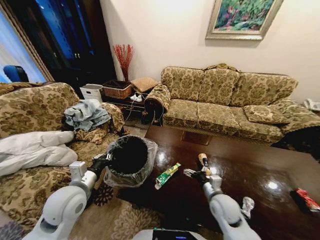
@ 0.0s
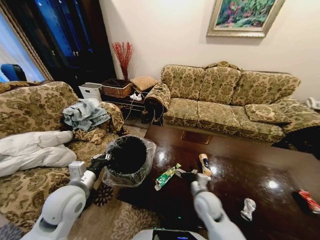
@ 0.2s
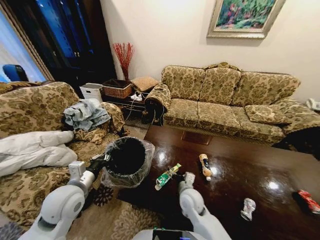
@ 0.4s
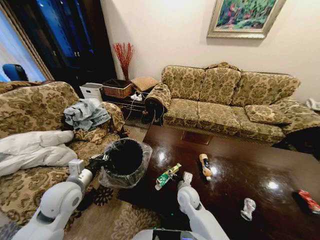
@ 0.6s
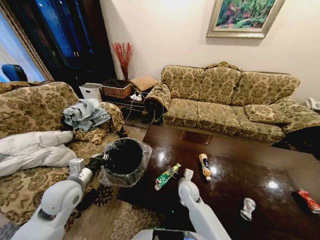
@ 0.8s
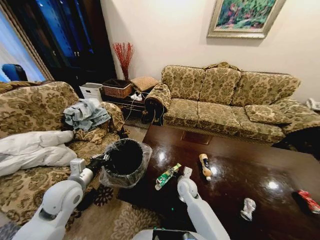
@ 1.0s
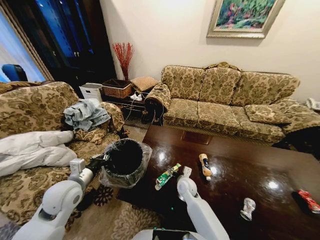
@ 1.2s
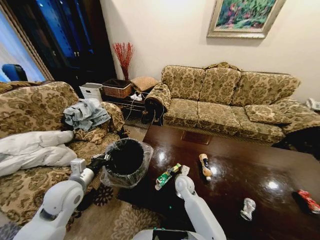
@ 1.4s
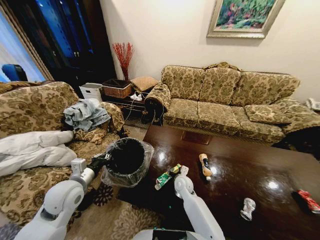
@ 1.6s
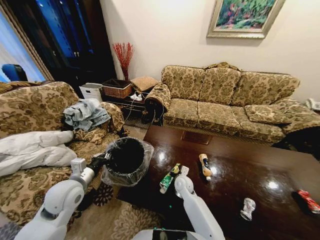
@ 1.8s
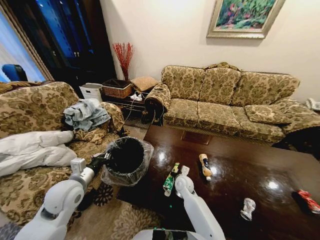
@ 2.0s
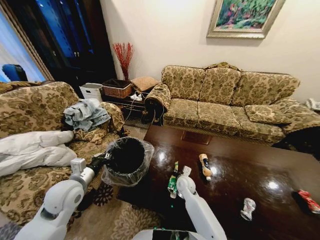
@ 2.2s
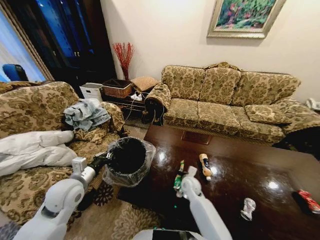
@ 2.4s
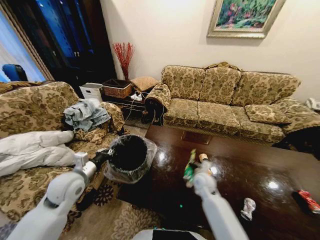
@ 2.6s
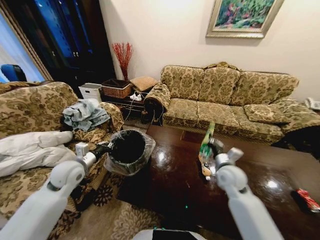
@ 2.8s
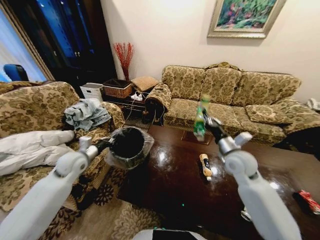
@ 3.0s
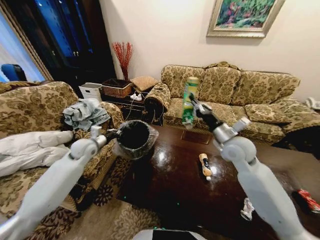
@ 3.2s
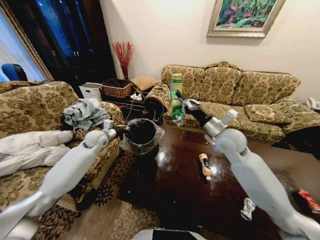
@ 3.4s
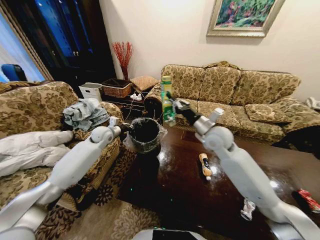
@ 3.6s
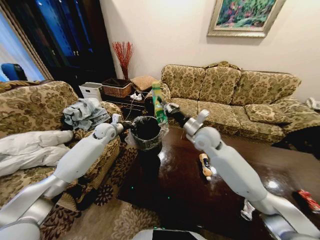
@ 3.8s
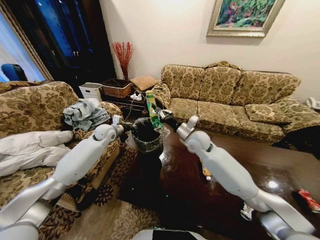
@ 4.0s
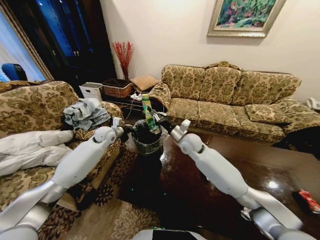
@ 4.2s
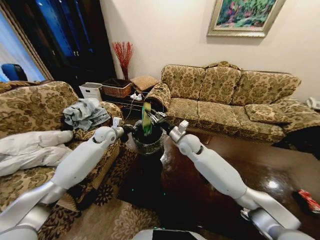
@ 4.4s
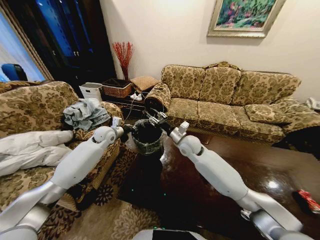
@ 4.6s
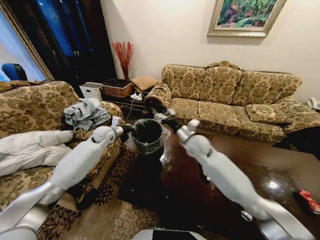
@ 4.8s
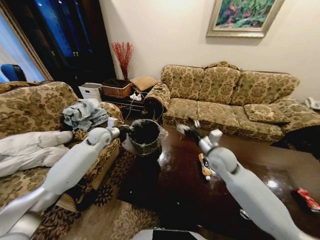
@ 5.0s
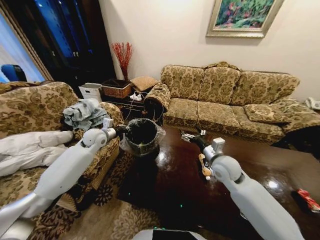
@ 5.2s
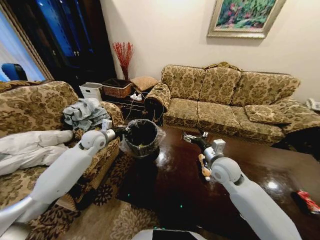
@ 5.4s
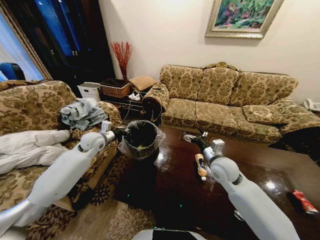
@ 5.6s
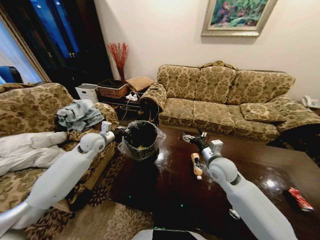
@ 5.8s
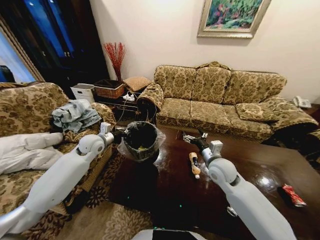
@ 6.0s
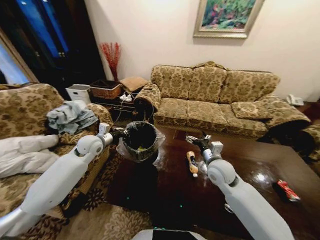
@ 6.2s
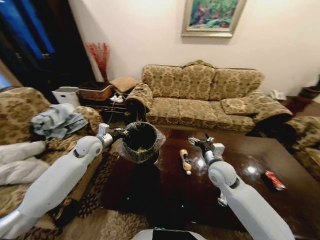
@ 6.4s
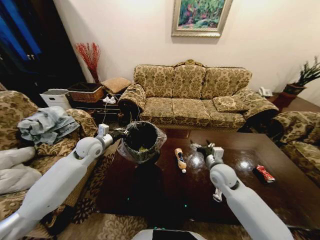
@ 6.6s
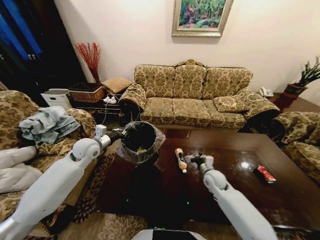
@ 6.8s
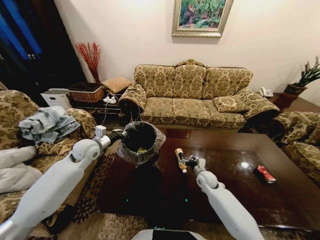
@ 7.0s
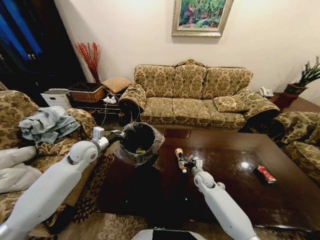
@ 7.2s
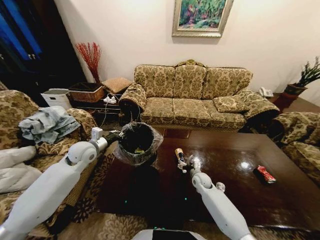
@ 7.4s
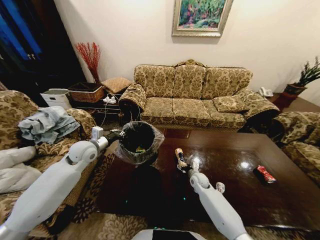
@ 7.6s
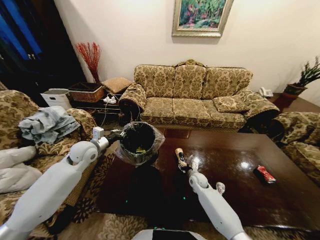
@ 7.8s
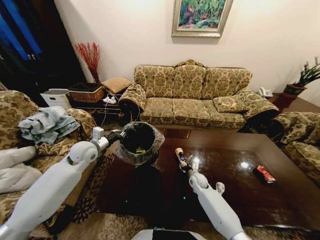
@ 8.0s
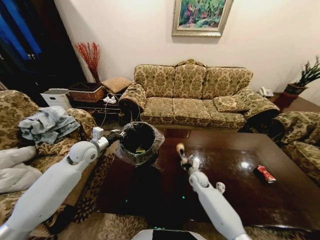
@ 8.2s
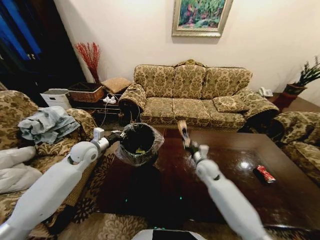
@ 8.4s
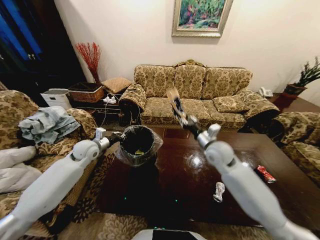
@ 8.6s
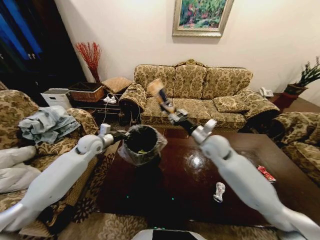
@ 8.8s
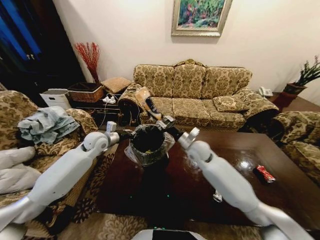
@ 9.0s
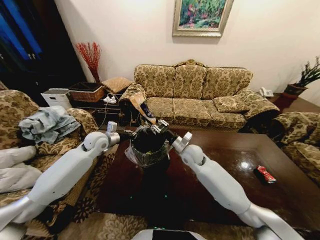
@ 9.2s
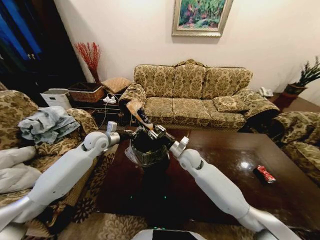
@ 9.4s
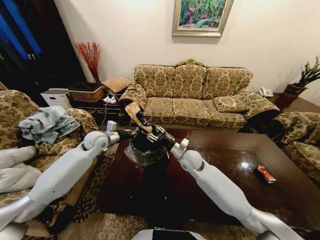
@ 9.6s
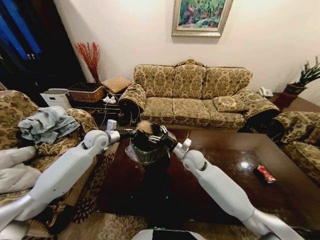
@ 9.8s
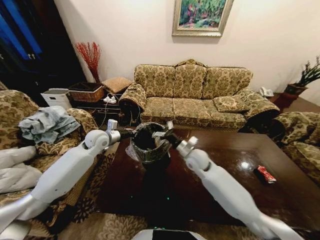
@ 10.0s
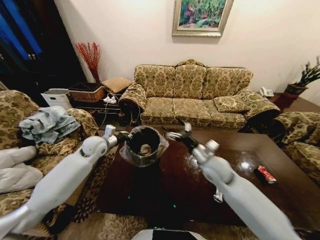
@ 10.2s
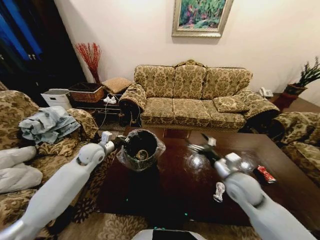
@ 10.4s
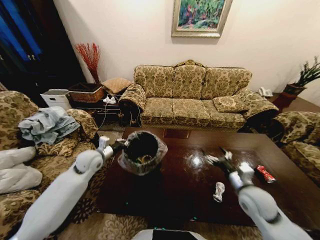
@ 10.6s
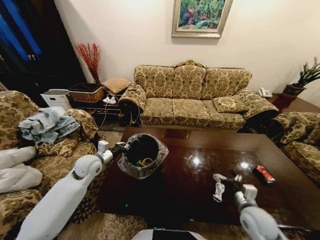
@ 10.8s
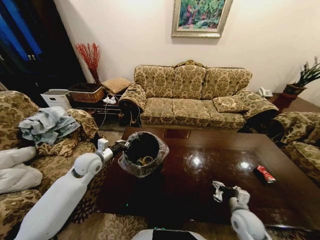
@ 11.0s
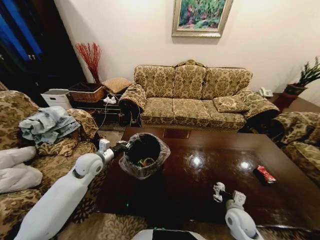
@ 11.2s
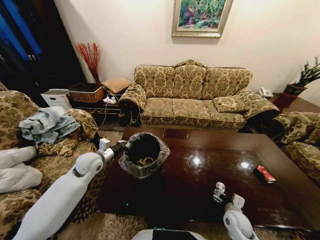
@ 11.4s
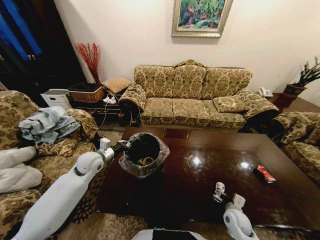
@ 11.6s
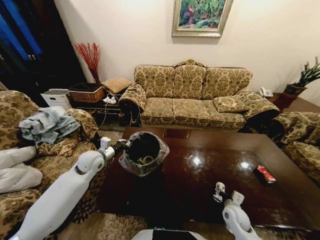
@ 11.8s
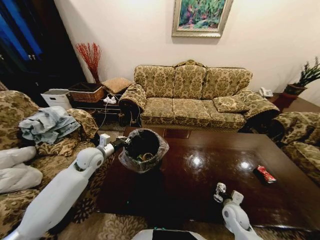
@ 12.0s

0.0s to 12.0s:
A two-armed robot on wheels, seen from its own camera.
Task of the whole recording: Move to the front of the table and place the trash on the table into the trash bin.
0.0s to 1.6s: The right gripper moves to the left, forward and downward, some 20 cm.
1.6s to 3.0s: The right gripper moves upward and to the right, roughly 30 cm, and closes its fingers, while the left gripper is displaced forward by about 10 cm.
3.0s to 4.4s: The right gripper is displaced to the left and forward by about 20 cm; the left gripper goes some 15 cm forward and to the right.
4.4s to 6.0s: The right gripper goes roughly 15 cm to the right and backward, and opens its fingers. The left gripper travels backward by roughly 5 cm.
6.0s to 7.6s: The right gripper shifts roughly 25 cm downward.
7.6s to 9.0s: The left gripper shifts about 5 cm forward, while the right gripper travels upward by approximately 25 cm, and closes up.
9.0s to 10.4s: The right gripper travels backward and to the right by approximately 20 cm, and opens up; the left gripper shifts by about 5 cm.
10.4s to 12.0s: The right gripper is displaced downward by some 20 cm.

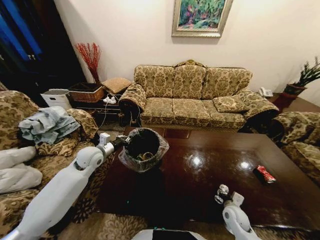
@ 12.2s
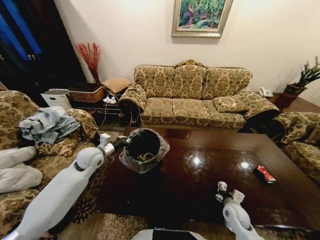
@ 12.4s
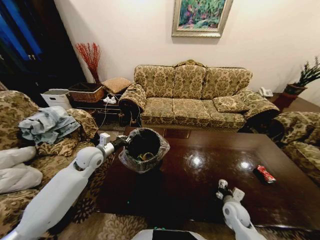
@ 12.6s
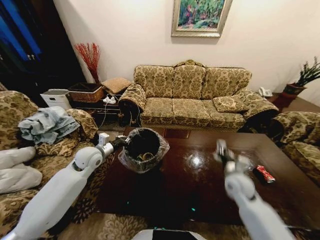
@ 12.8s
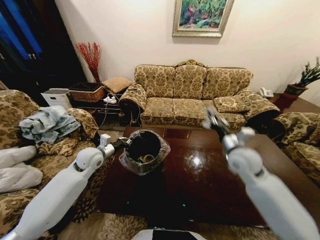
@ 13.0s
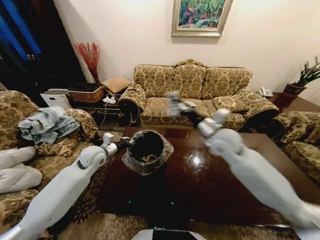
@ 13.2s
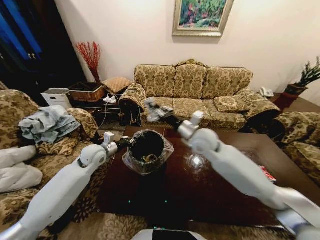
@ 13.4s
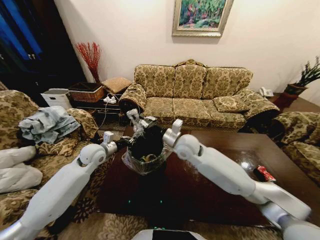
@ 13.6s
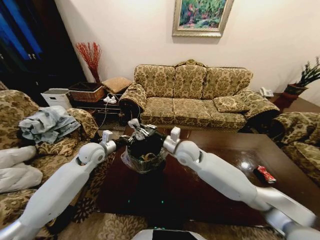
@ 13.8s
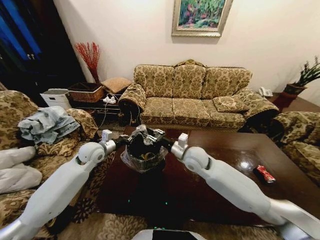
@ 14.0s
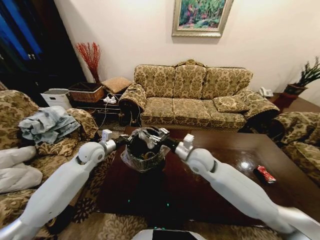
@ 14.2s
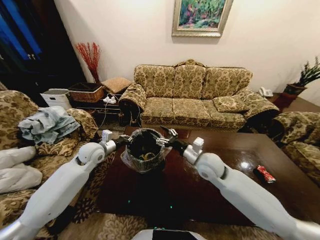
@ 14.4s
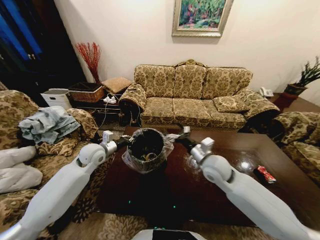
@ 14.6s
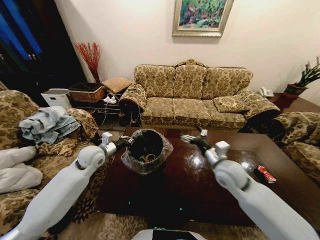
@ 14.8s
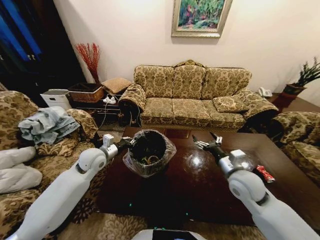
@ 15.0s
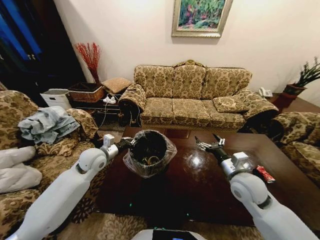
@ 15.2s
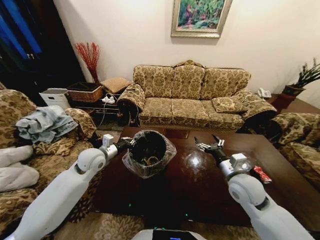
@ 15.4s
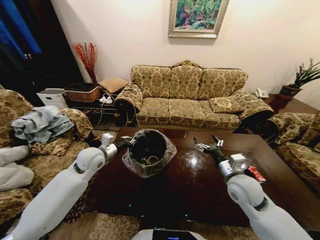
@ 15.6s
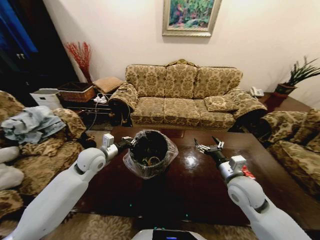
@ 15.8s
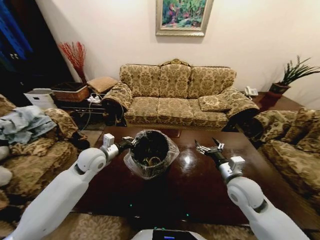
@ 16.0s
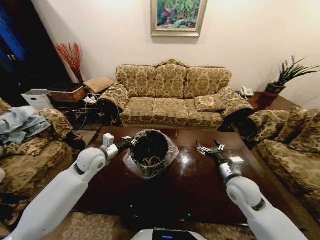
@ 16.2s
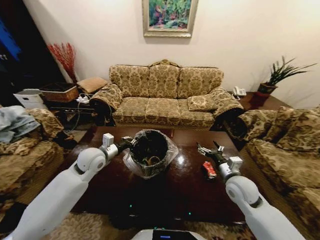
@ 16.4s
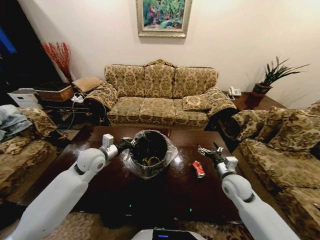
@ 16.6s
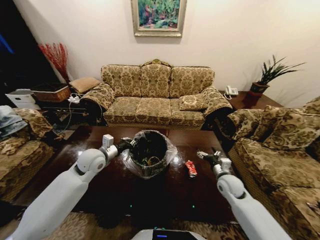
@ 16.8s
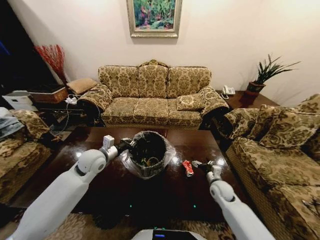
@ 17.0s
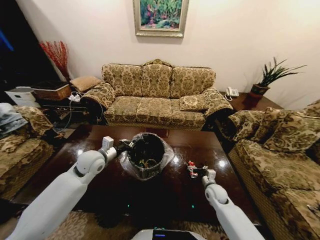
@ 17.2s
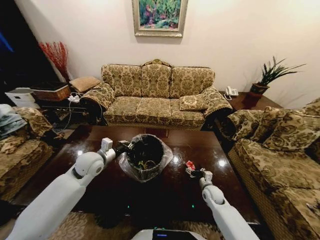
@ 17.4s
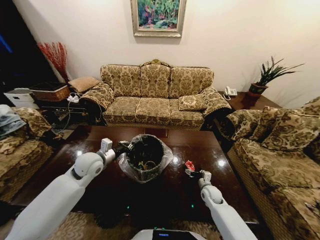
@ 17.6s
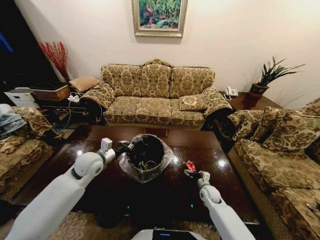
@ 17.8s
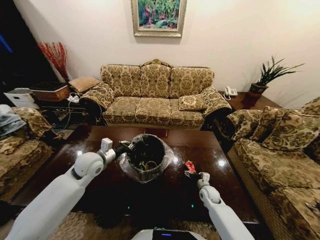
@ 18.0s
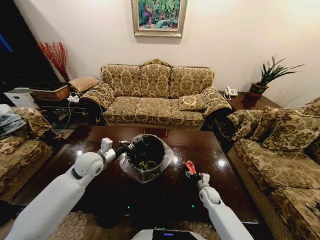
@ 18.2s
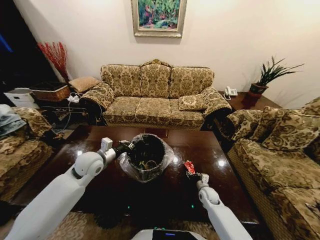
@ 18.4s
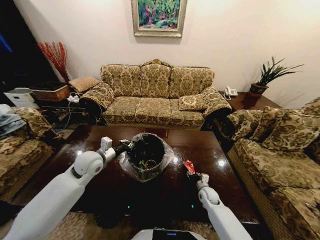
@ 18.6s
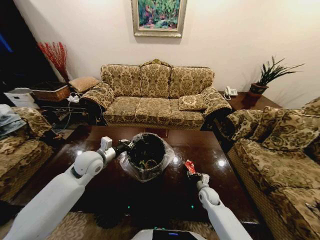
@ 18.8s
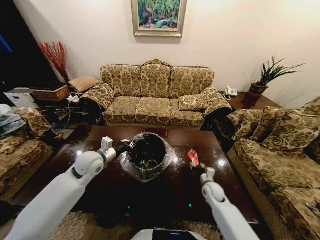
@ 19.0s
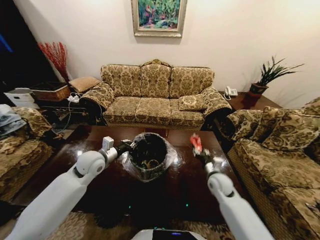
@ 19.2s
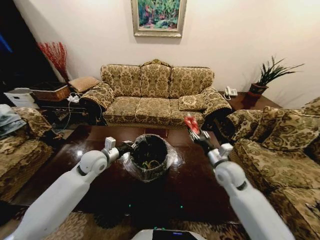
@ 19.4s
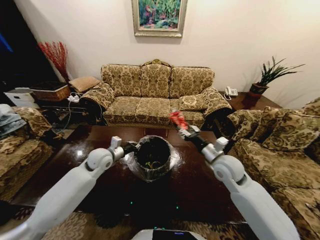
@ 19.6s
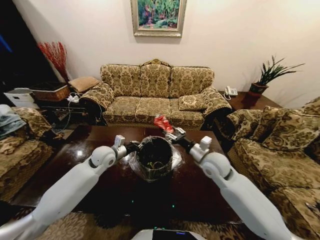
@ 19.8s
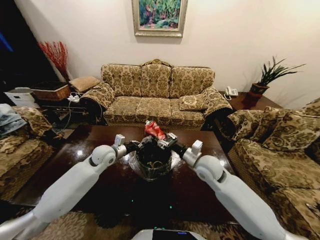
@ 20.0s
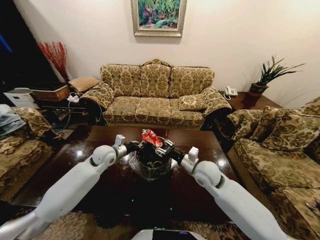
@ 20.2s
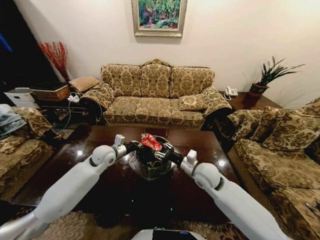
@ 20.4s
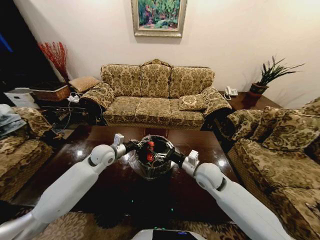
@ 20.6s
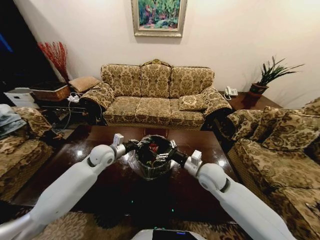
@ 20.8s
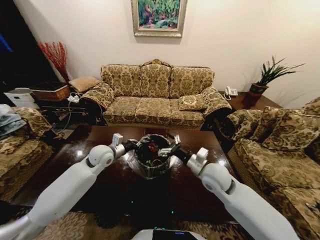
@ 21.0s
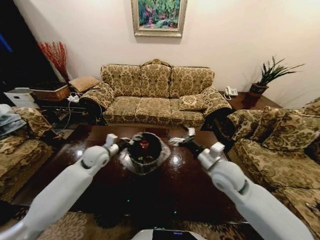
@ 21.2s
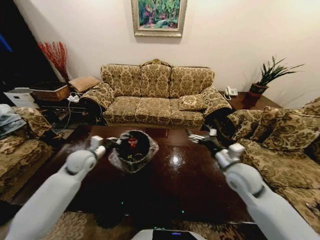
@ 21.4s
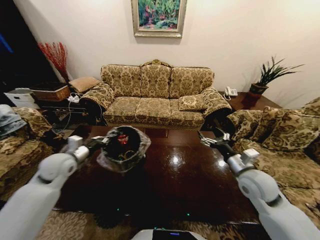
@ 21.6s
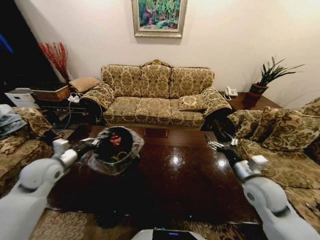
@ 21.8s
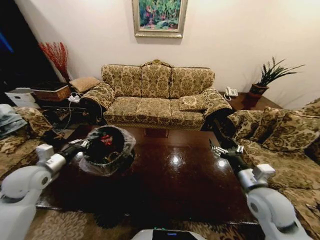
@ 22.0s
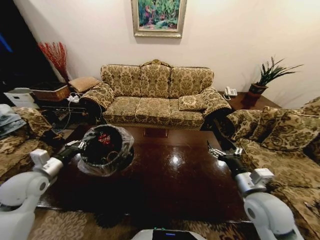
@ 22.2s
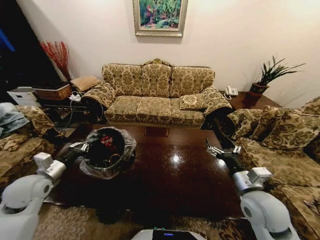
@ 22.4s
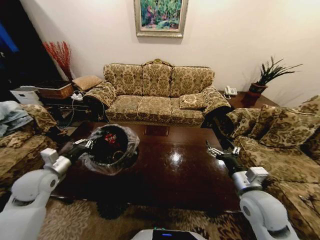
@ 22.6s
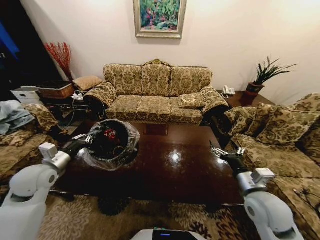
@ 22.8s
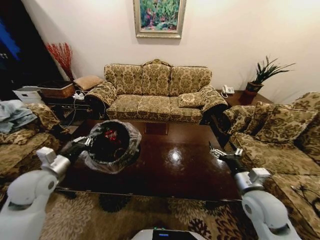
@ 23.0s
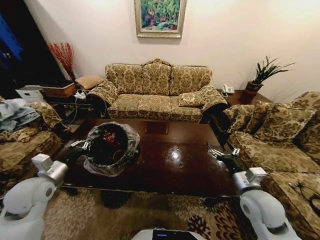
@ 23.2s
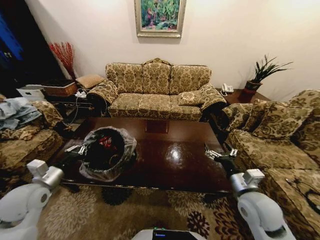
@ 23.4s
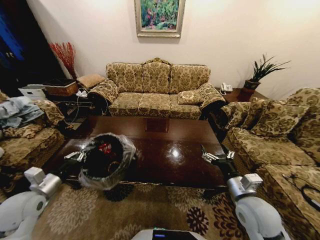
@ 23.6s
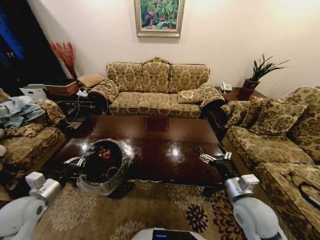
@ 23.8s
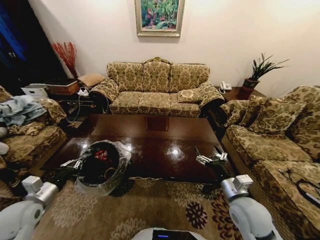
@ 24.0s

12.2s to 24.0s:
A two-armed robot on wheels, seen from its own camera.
Task of the whole recording: Move to the front of the table and place the trash on the table into the trash bin.
12.2s to 13.6s: The right gripper travels upward, to the left and forward by some 40 cm, and closes.
13.6s to 15.2s: The right gripper heads to the right and backward, covering approximately 25 cm, and opens its fingers.
15.2s to 16.6s: The right gripper is displaced downward by approximately 10 cm.
16.6s to 18.2s: The right gripper heads downward, covering approximately 20 cm.
18.2s to 19.6s: The left gripper changes place by roughly 5 cm, while the right gripper goes roughly 30 cm upward, and closes.
19.6s to 21.0s: The right gripper ends up about 5 cm from where it was, and opens.
21.0s to 22.6s: The right gripper shifts approximately 15 cm to the right and backward. Meanwhile the left gripper shifts about 20 cm to the left and backward.
22.6s to 24.0s: The left gripper goes approximately 10 cm backward.
